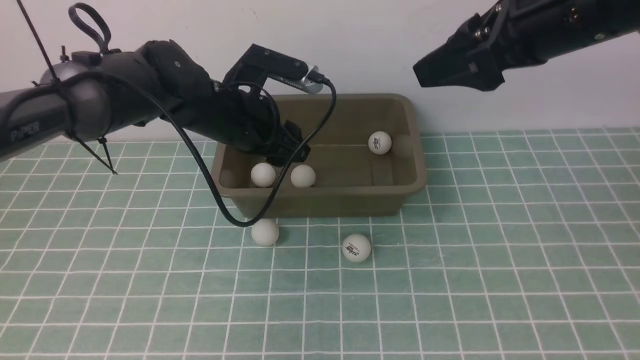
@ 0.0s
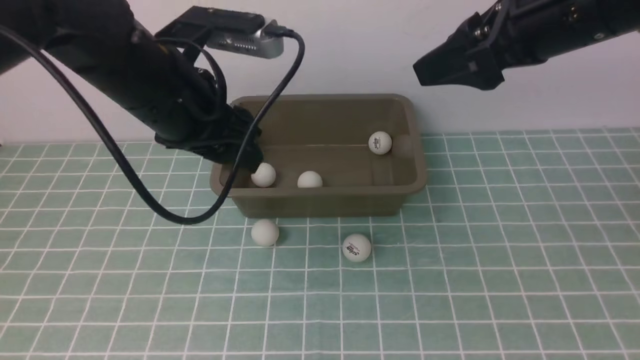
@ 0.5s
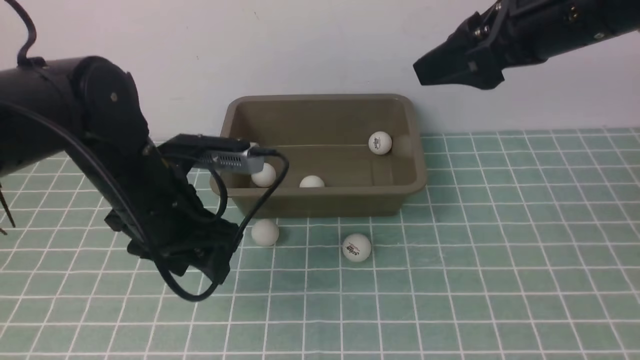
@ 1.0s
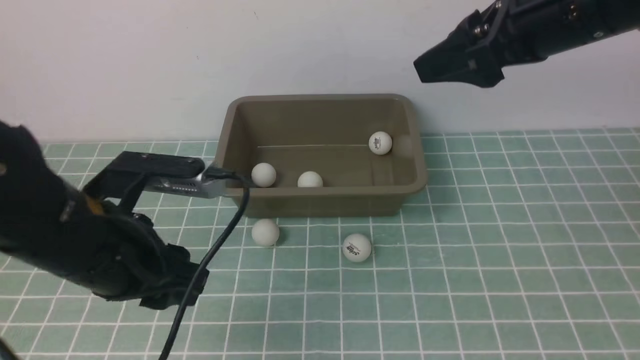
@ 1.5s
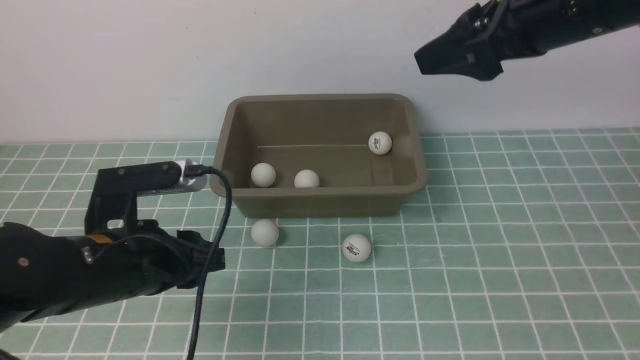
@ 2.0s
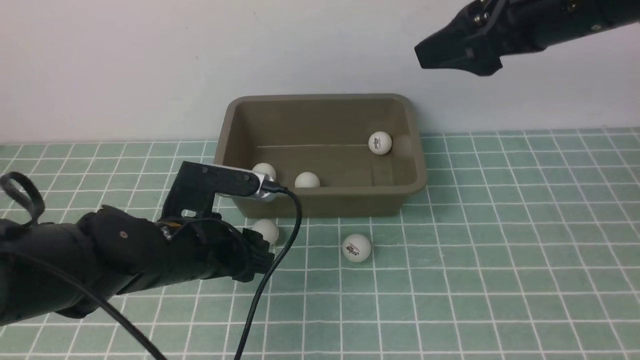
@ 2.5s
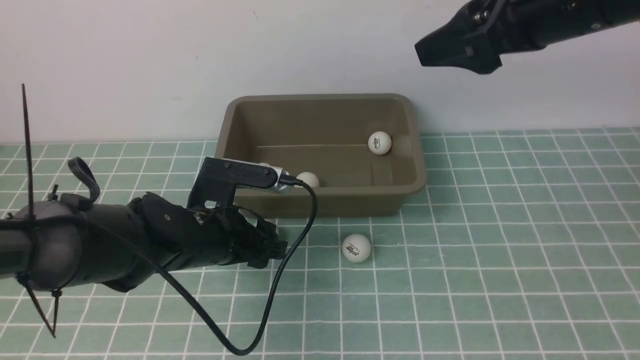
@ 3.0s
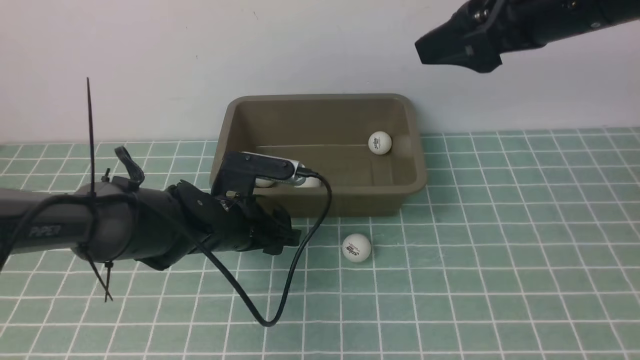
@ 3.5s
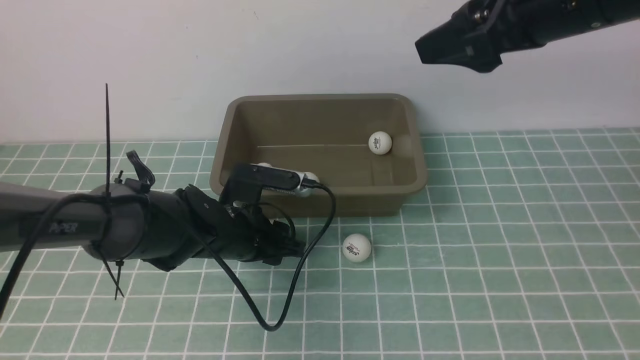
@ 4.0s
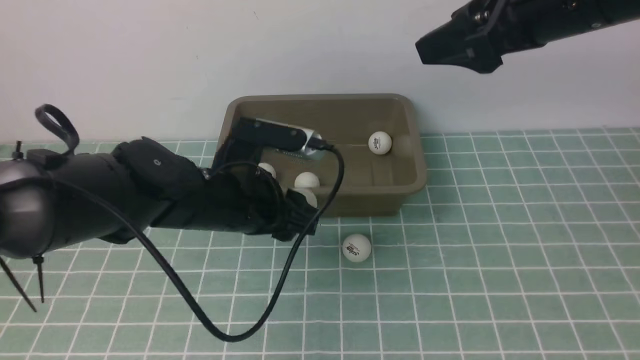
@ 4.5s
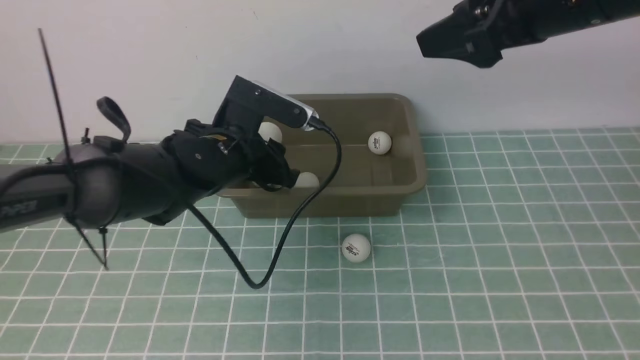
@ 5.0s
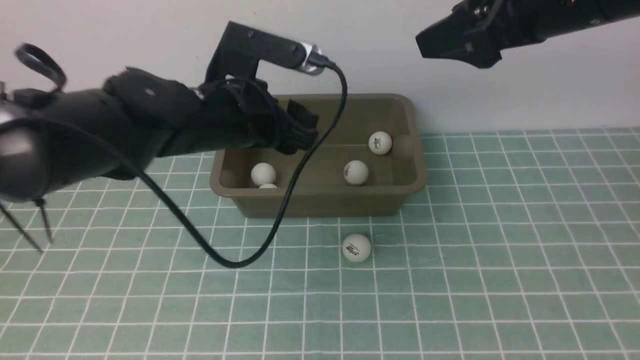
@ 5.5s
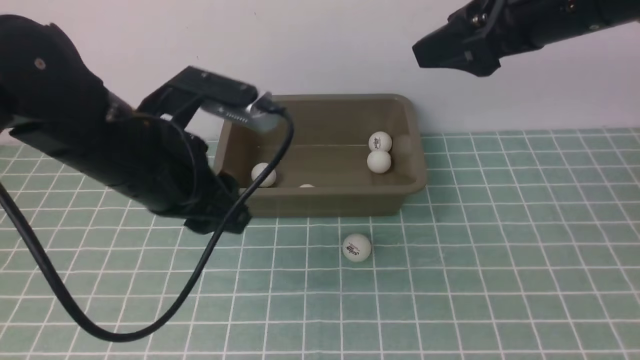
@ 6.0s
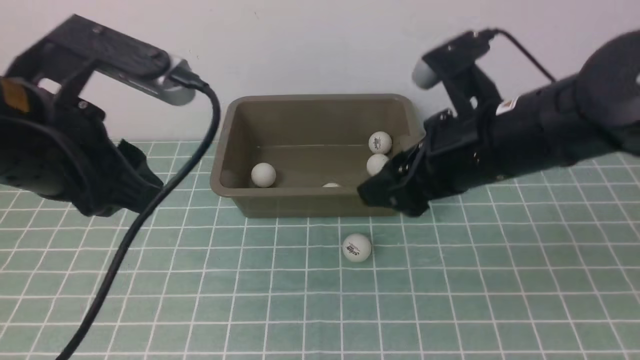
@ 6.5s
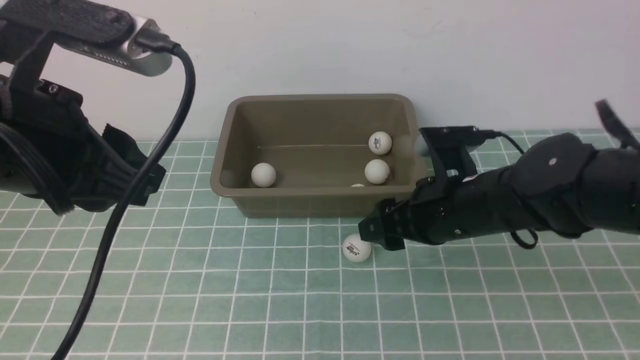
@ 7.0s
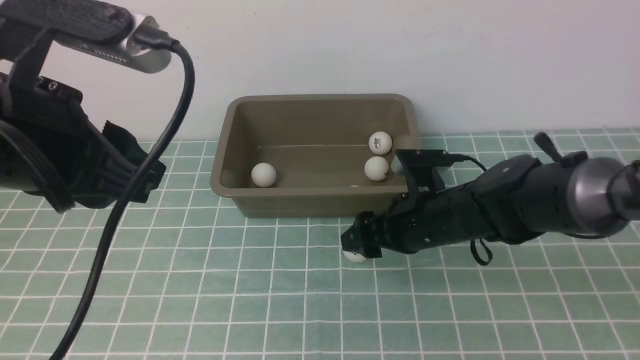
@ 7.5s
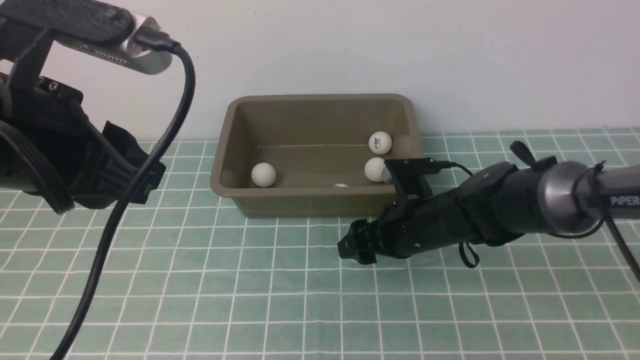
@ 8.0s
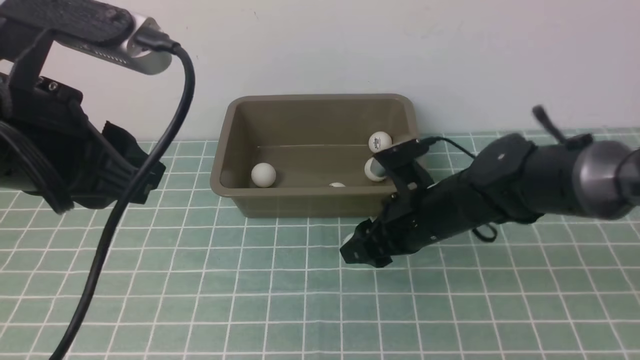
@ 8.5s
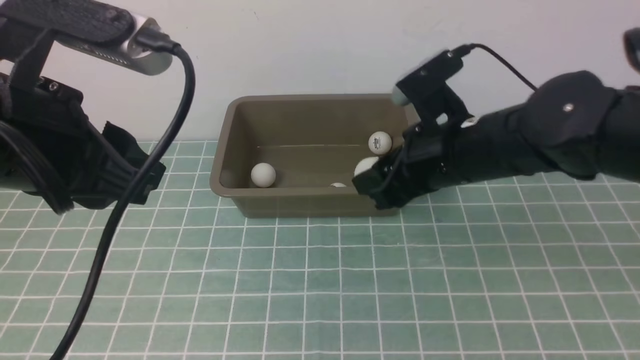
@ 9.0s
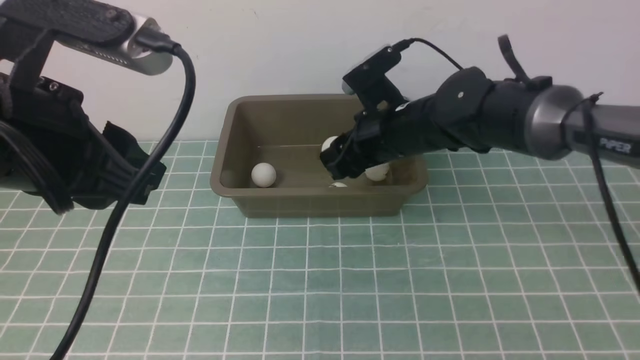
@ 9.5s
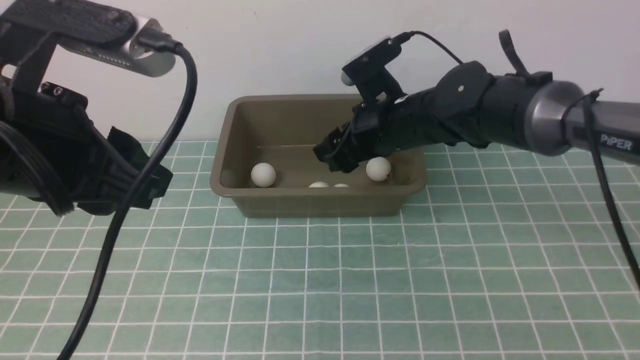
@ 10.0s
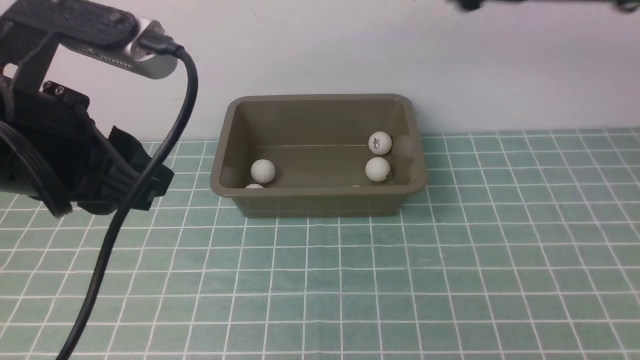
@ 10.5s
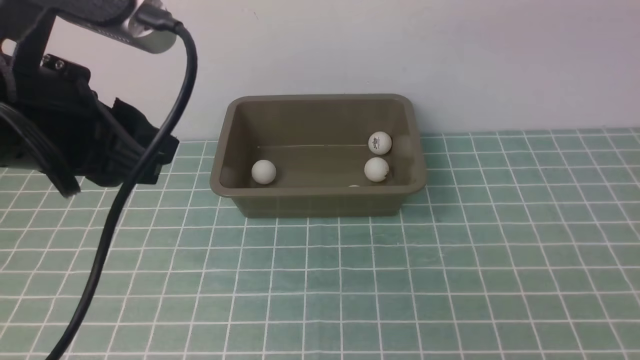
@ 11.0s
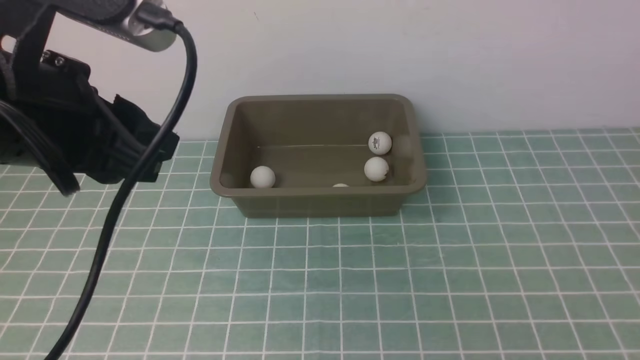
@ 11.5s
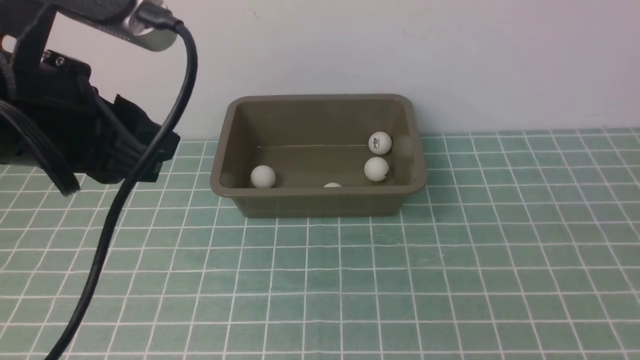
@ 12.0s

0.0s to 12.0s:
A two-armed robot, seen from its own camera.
Step, 0.0s to 5.0s: use the left arm to clamp the table tennis ball closest to it.
Step, 5.5s to 8.5s: use the right arm to clamp the table tennis ball closest to it.
Step, 9.0s to 10.0s: use the right arm to put the table tennis ball into the box.
0.0s to 2.0s: The left gripper moves backward and downward, about 15 cm.
2.0s to 4.0s: The left gripper is displaced forward, downward and to the right by roughly 15 cm.
4.0s to 6.0s: The left gripper shifts roughly 20 cm upward.
6.0s to 8.0s: The left gripper heads backward and upward, covering some 10 cm, while the right gripper shifts about 25 cm downward, and closes its fingers.
8.0s to 10.0s: The right gripper shifts approximately 10 cm upward and forward, and closes and opens again.
10.0s to 12.0s: The right gripper is displaced backward and to the right by approximately 35 cm.

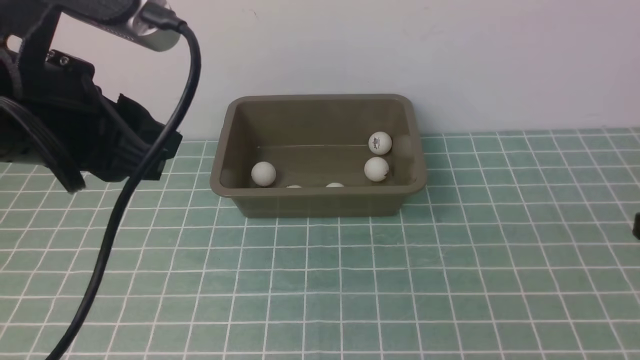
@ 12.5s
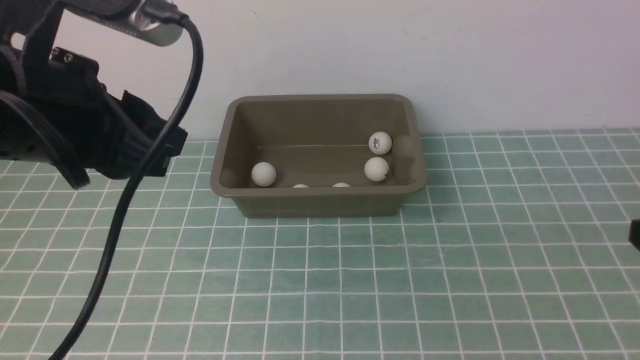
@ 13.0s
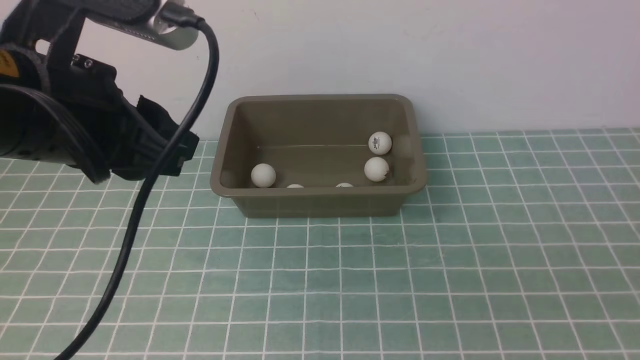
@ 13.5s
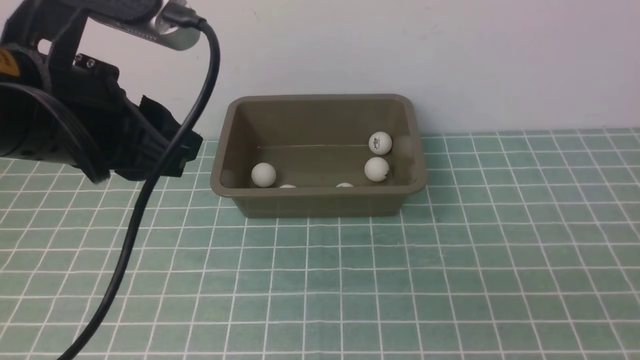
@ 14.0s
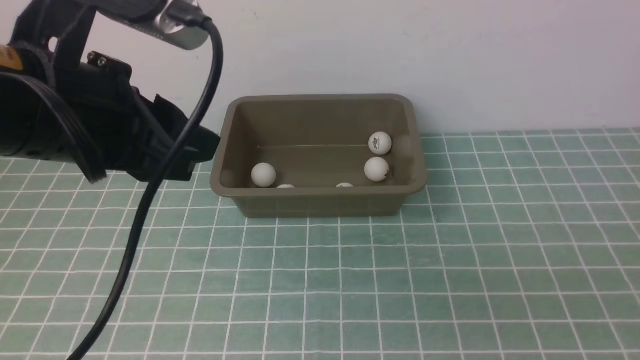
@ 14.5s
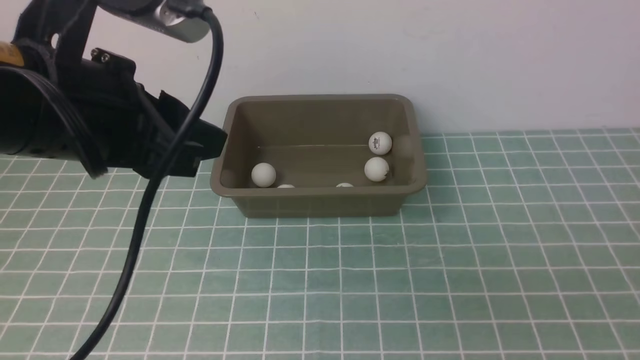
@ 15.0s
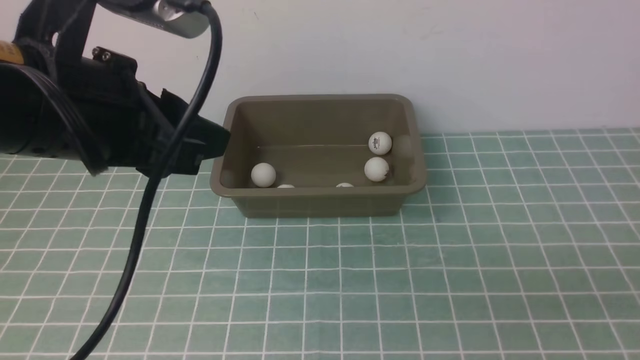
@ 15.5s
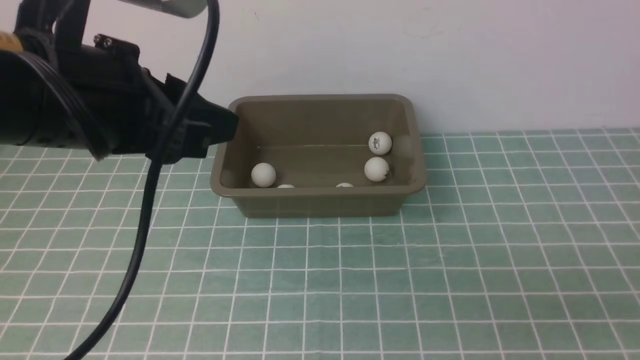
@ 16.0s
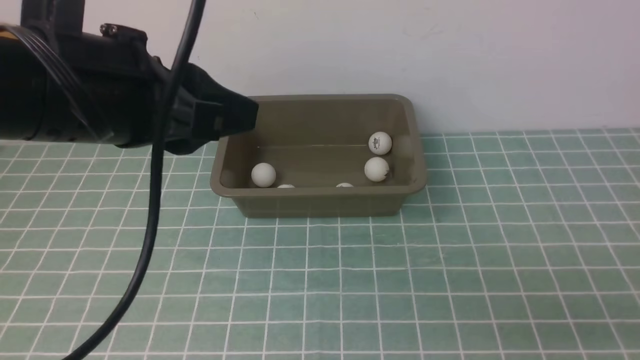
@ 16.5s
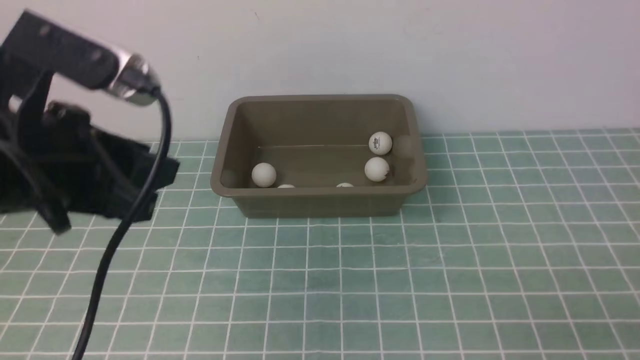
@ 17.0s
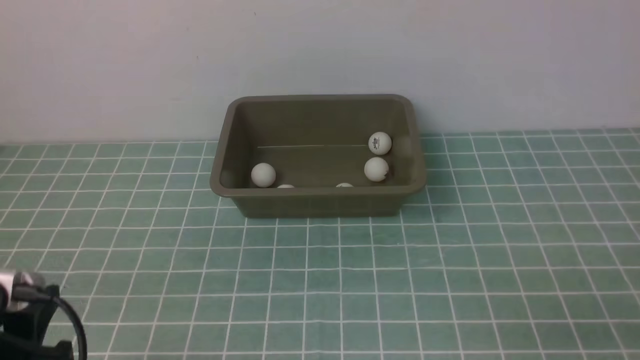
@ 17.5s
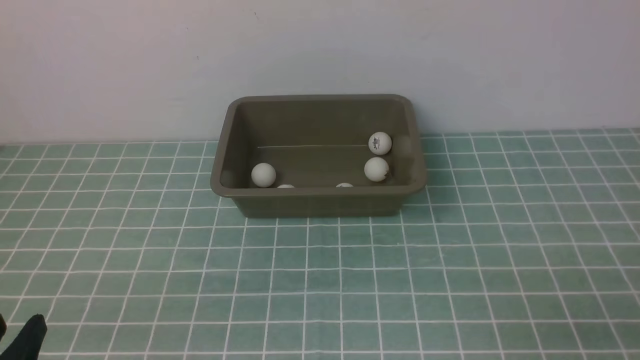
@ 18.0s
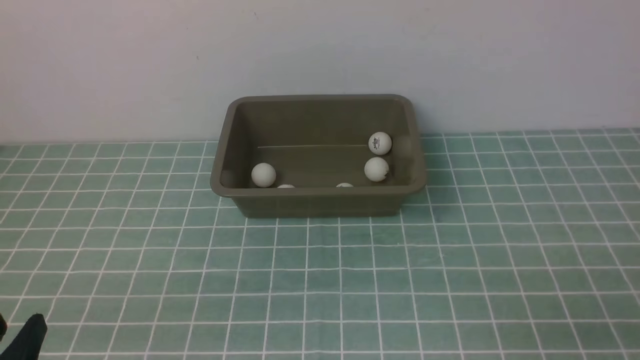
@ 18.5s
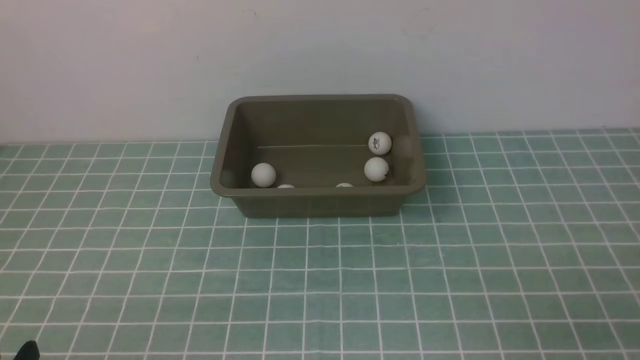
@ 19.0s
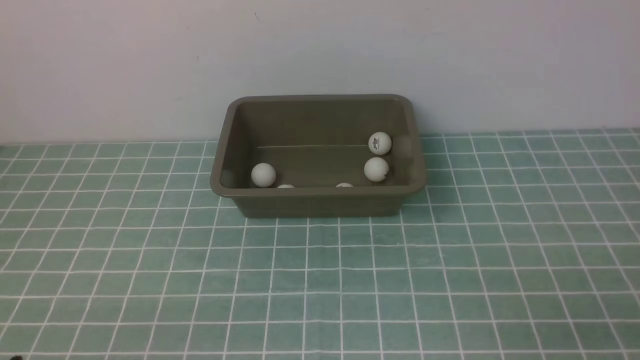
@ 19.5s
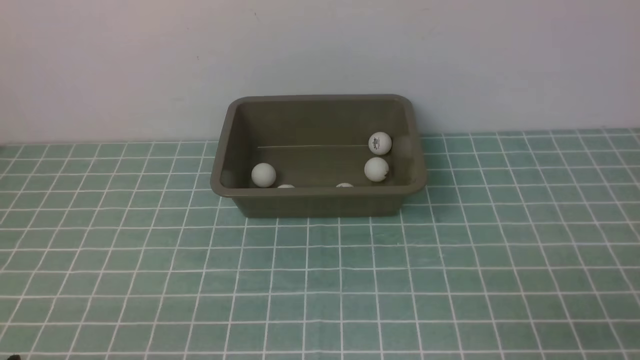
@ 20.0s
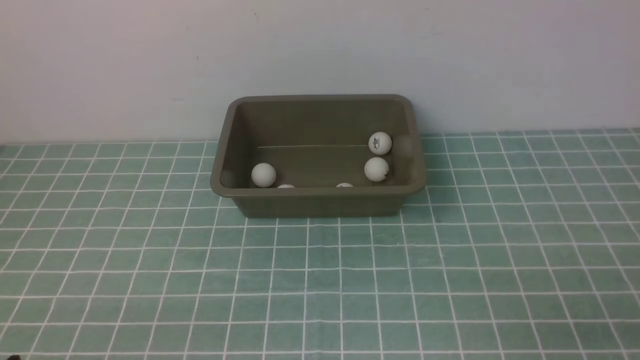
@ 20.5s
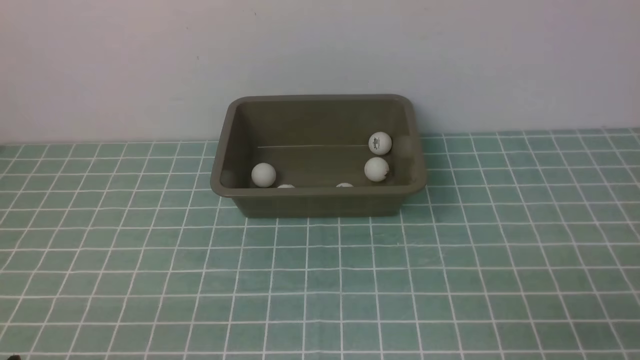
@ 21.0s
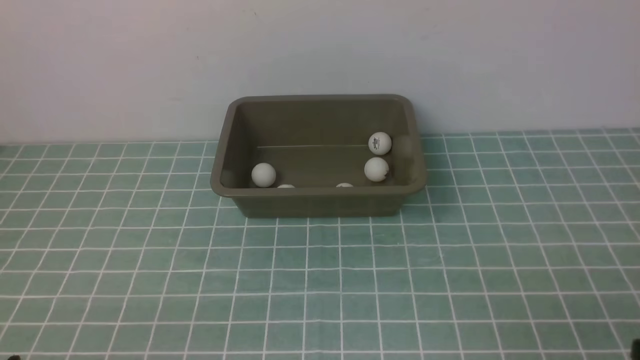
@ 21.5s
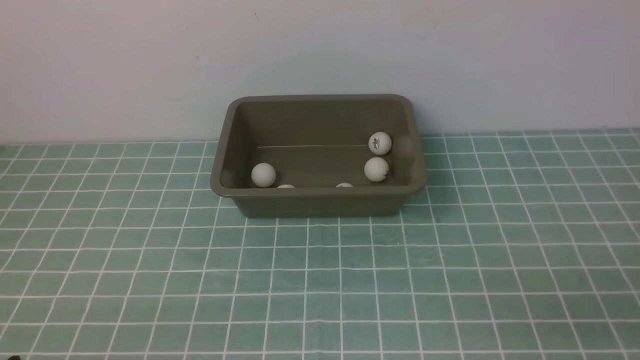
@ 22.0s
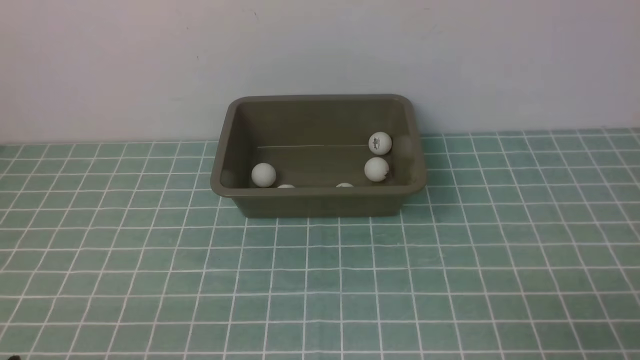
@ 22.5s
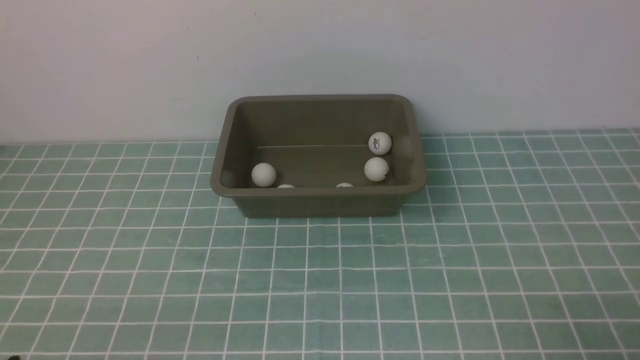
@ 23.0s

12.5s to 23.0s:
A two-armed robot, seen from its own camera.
14.5s to 16.5s: The right gripper is displaced downward by roughly 5 cm.
16.5s to 19.0s: The left gripper heads downward, backward and to the left, covering some 30 cm.
